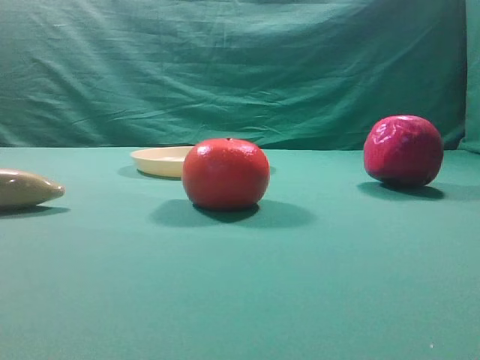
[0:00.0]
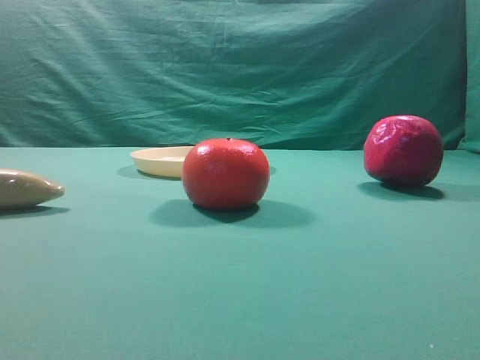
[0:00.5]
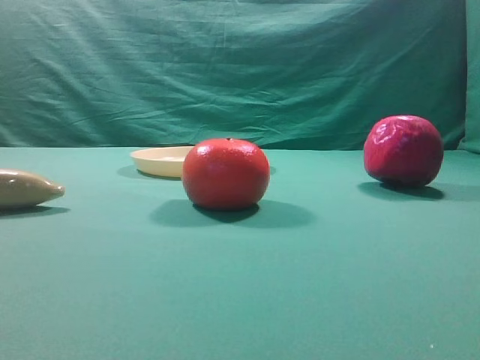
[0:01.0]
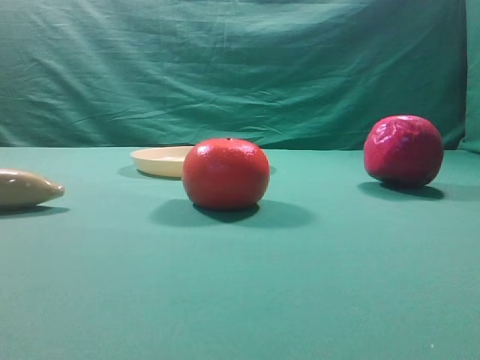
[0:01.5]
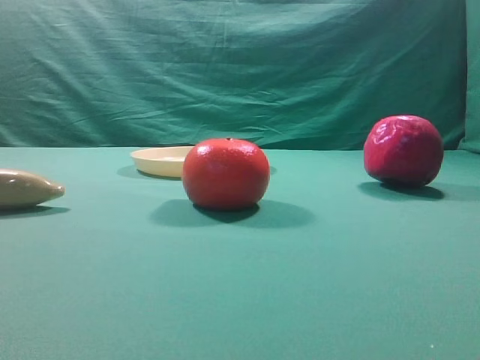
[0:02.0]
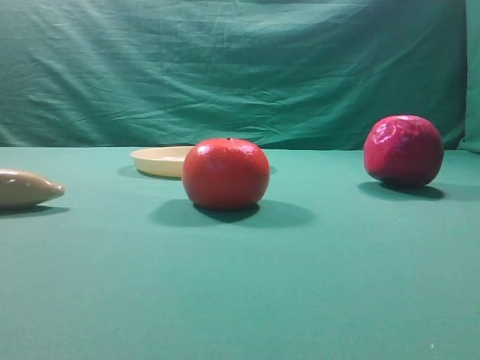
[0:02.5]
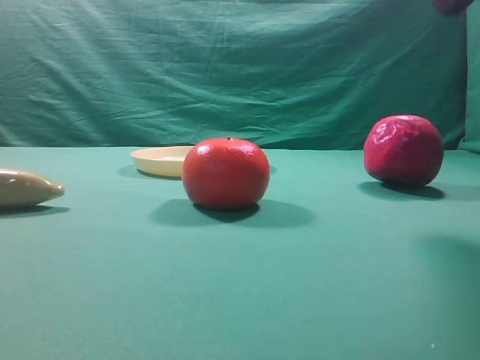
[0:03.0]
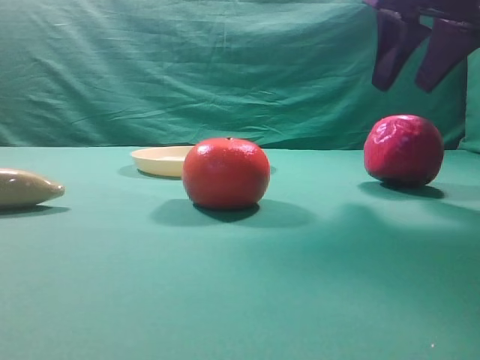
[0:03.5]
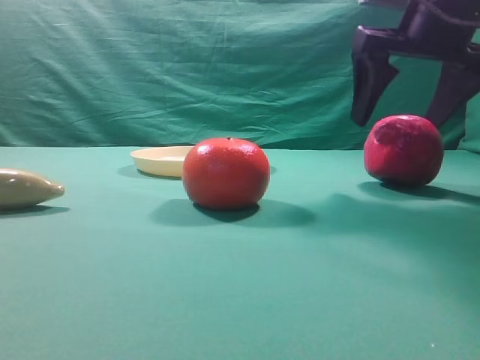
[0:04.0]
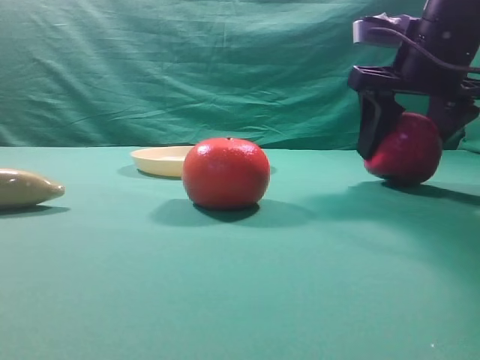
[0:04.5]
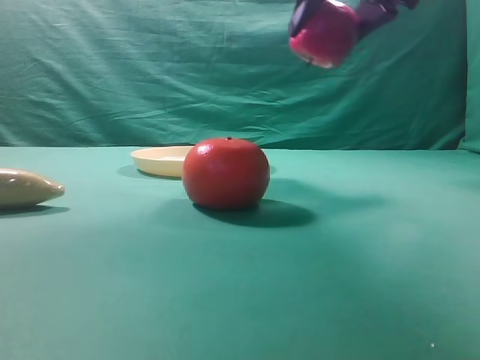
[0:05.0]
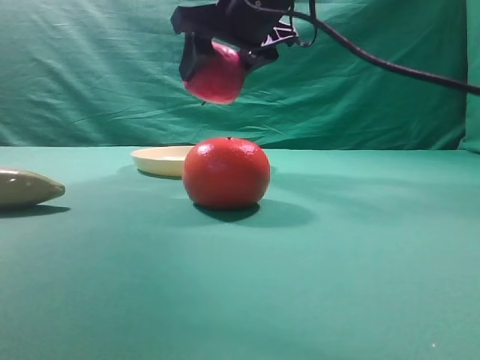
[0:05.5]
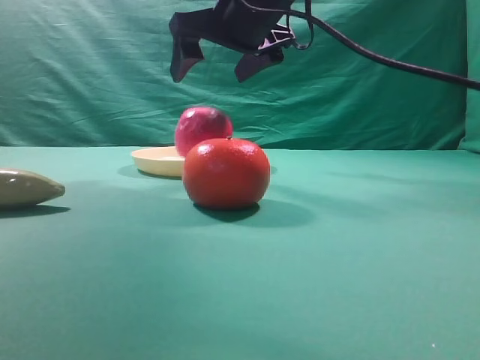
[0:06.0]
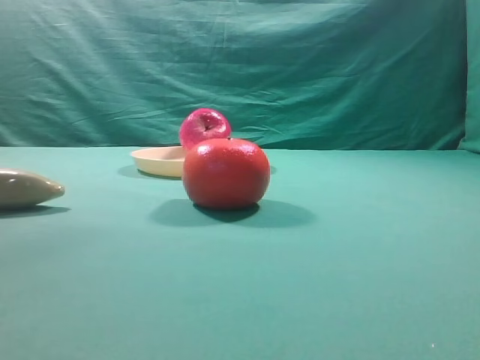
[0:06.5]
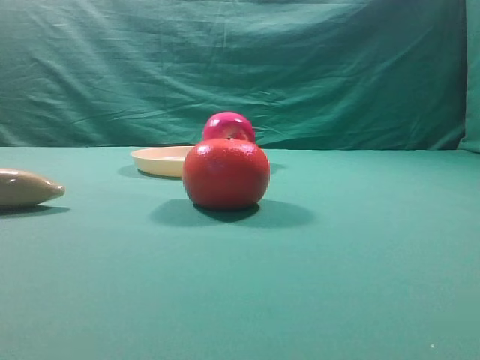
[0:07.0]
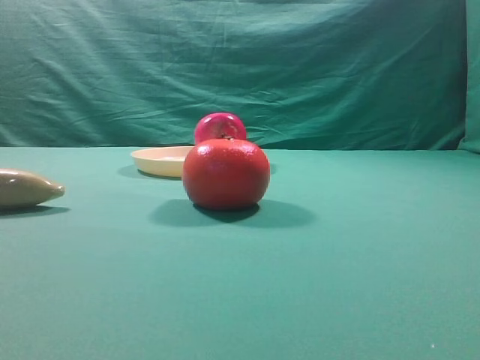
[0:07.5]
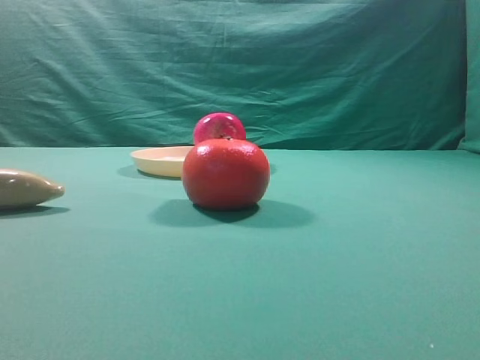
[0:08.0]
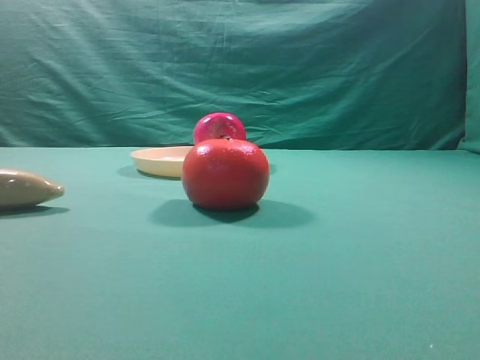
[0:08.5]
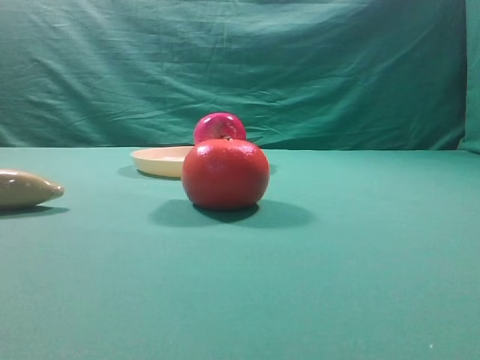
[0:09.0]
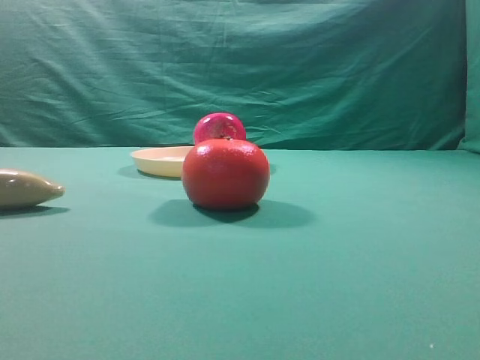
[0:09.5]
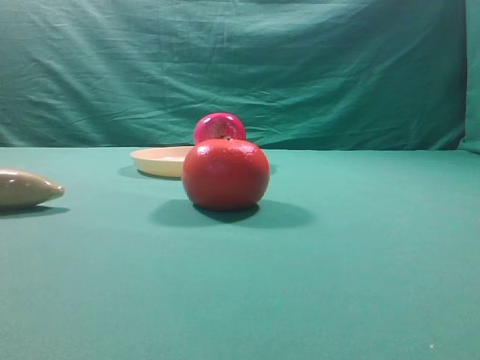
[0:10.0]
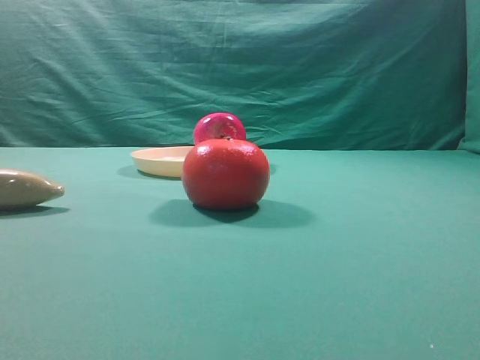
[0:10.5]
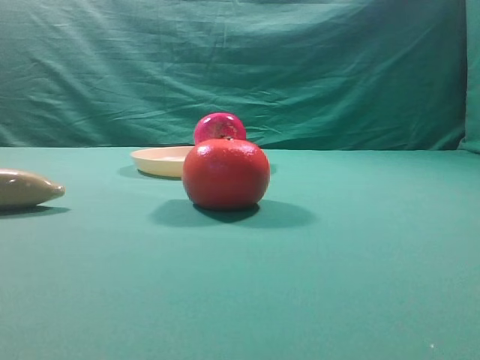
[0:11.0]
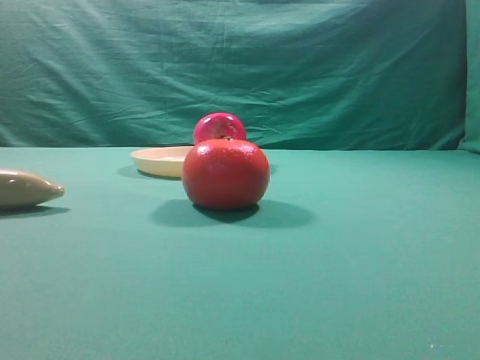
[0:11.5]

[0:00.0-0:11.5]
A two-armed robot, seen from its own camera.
Task of the whole recording: grasp the apple and place it into the yellow plate.
Step, 0:00.0 to 0:04.5: Grasp the fruit that can keep the doctor away.
Step, 0:05.0 to 0:06.0: Place the picked object into the yellow plate.

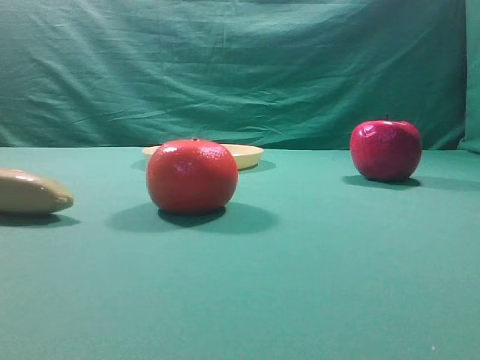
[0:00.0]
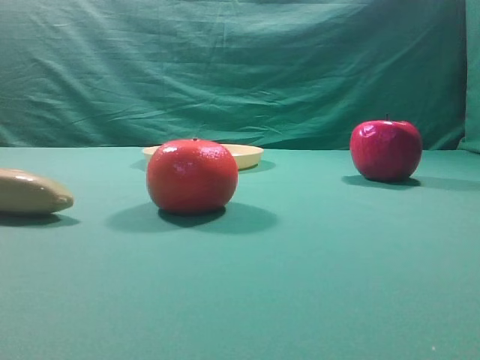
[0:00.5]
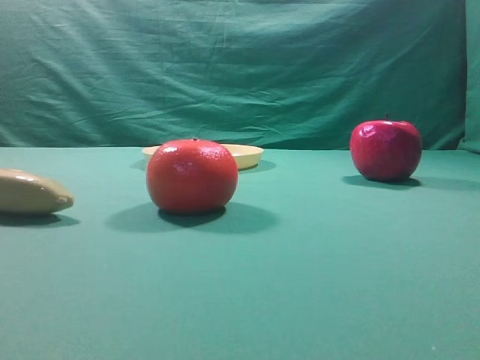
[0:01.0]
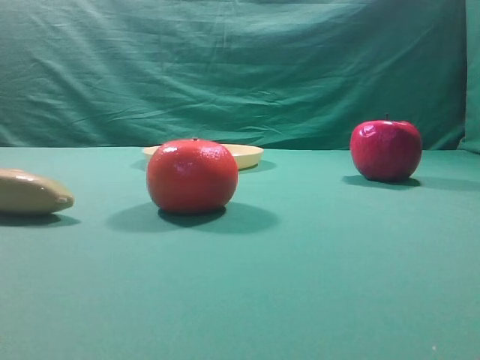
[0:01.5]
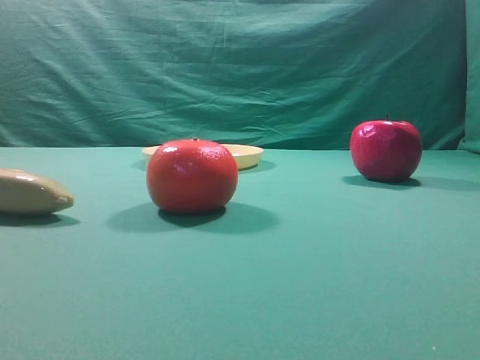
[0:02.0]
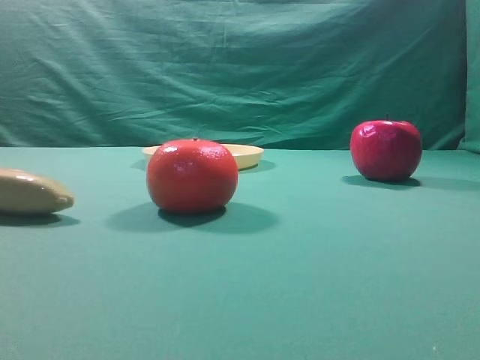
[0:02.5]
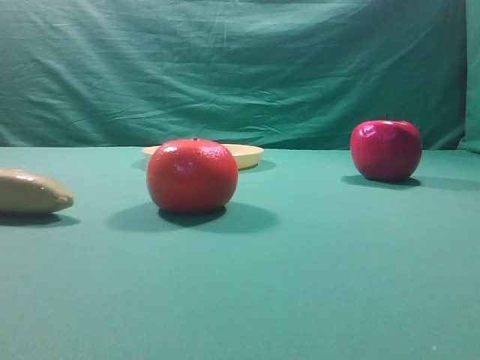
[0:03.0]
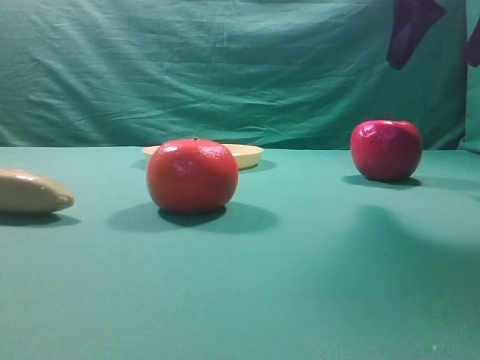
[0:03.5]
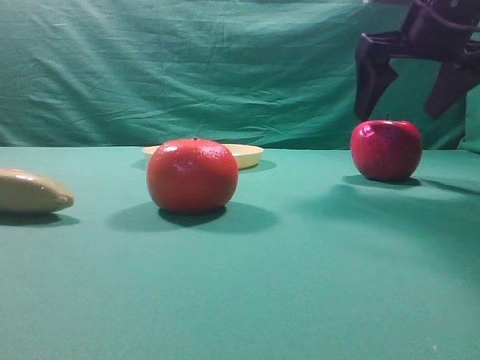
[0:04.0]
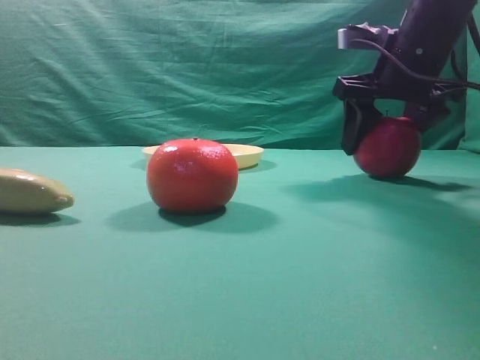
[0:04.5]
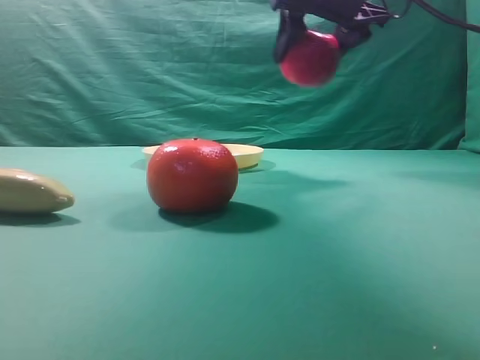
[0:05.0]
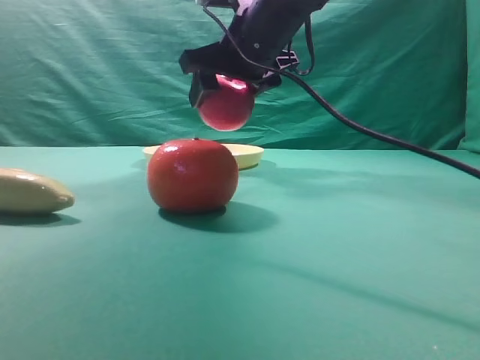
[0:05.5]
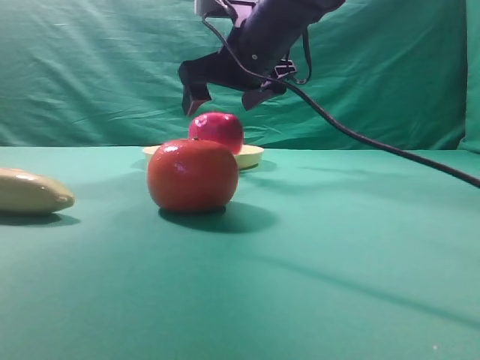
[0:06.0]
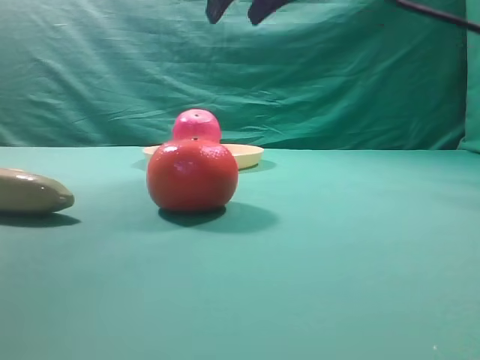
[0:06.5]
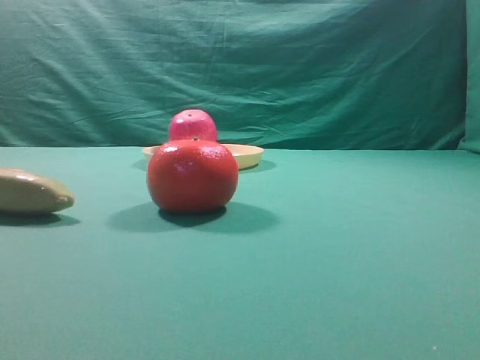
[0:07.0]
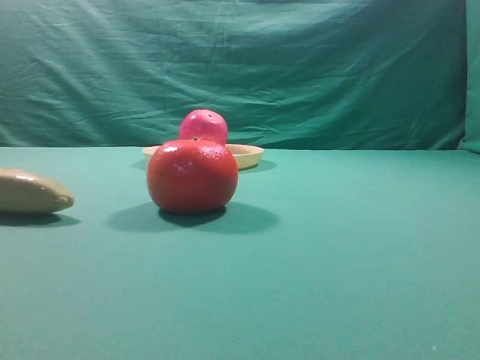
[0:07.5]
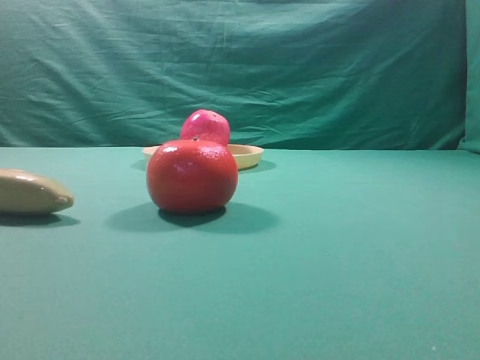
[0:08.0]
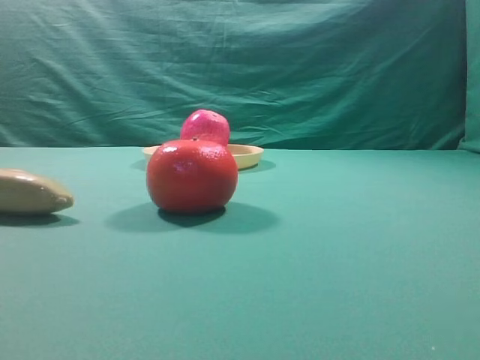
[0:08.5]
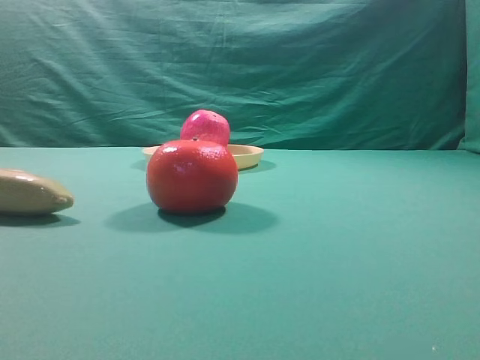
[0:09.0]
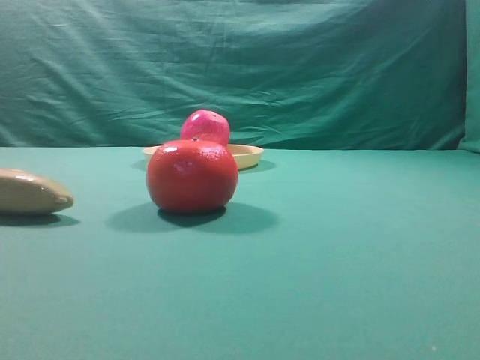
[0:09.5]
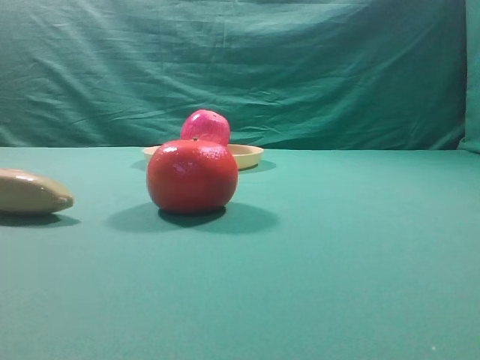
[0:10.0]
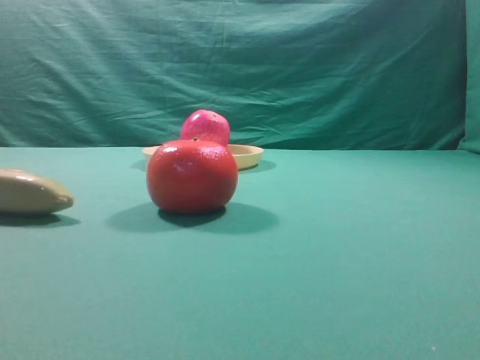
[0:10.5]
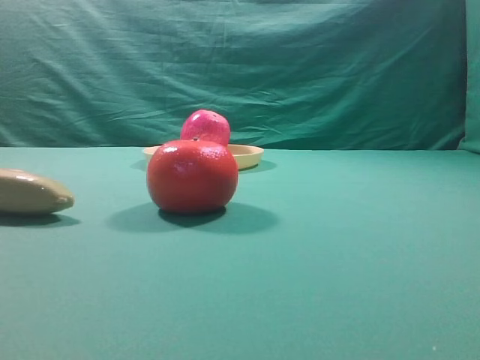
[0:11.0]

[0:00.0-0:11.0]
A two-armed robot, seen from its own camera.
Task of the whole recording: grasp the apple and place it into the yellow plate.
Step, 0:00.0 to 0:04.5: Grasp the fruit that can keep the doctor away.
Step, 0:05.0 to 0:06.0: Place the picked object into the yellow plate.
